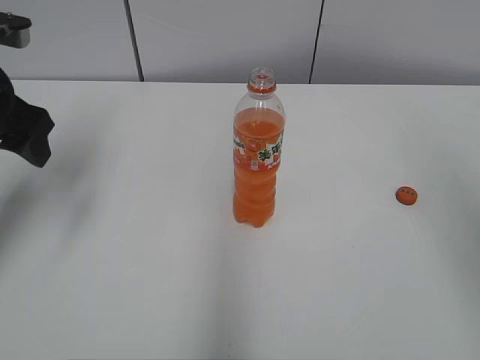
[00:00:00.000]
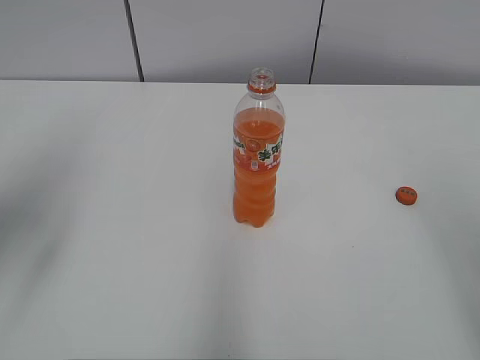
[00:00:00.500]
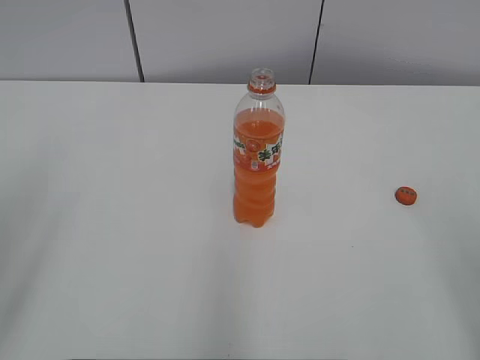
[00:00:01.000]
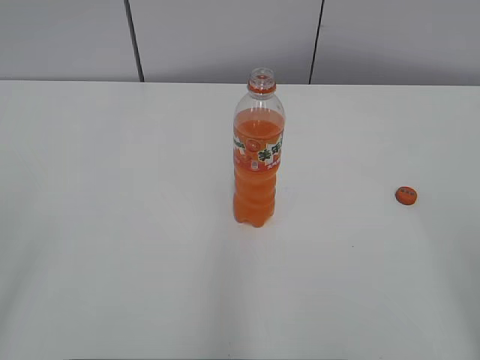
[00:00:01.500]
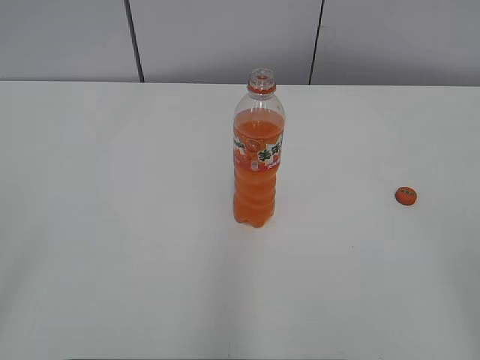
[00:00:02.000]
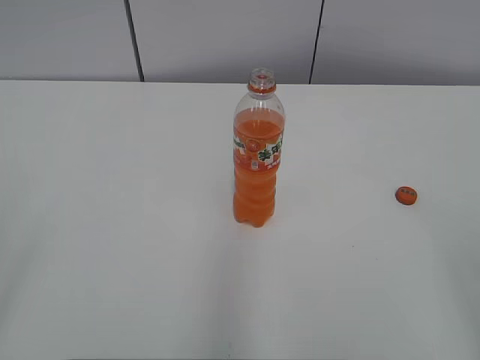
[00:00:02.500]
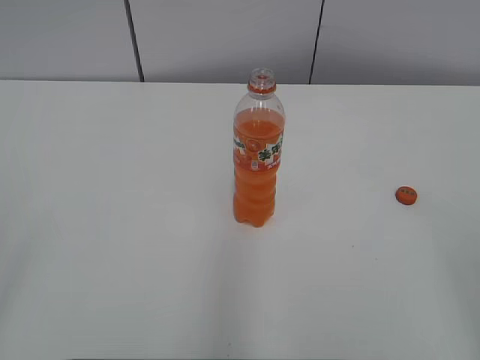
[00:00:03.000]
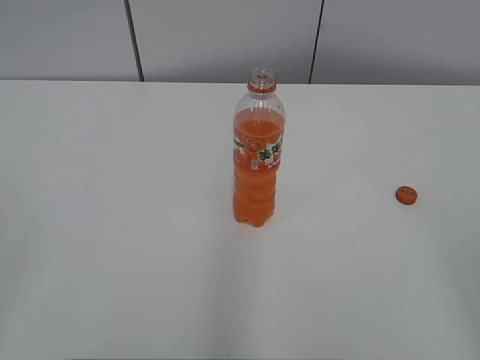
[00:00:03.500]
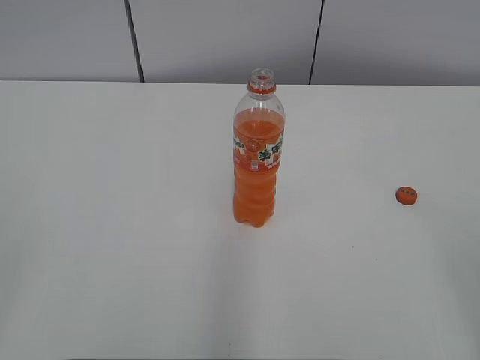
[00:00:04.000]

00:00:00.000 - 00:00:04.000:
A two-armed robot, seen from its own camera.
00:00:00.000 - 00:00:02.000: The left gripper travels backward by some 30 cm.
